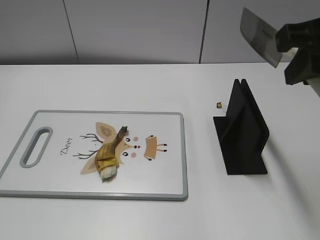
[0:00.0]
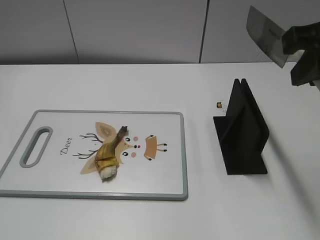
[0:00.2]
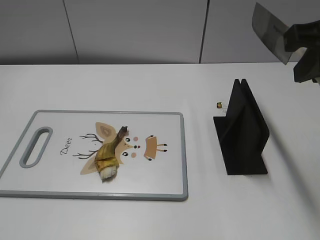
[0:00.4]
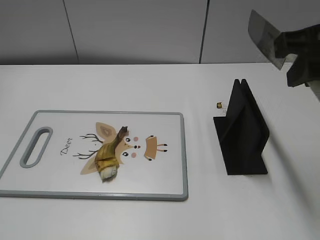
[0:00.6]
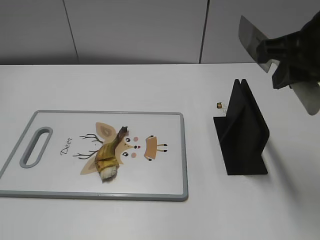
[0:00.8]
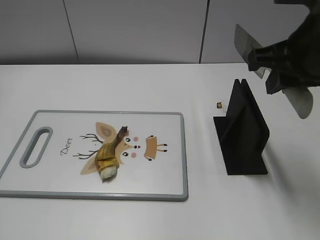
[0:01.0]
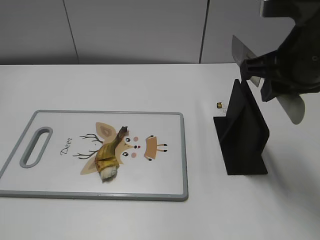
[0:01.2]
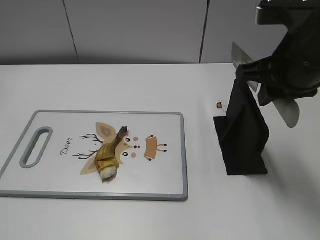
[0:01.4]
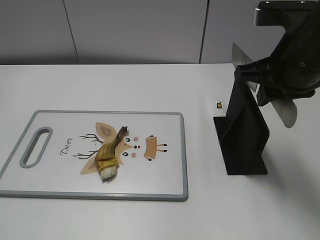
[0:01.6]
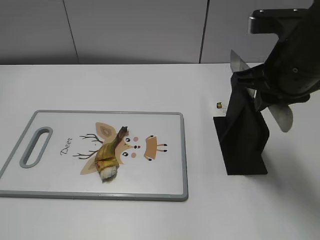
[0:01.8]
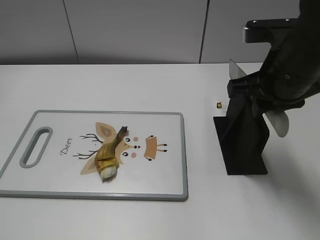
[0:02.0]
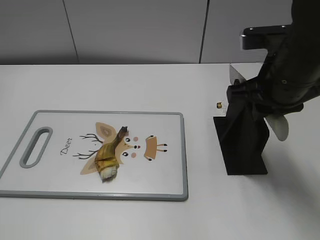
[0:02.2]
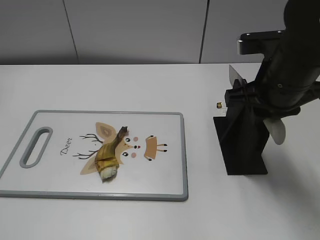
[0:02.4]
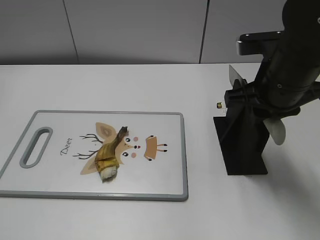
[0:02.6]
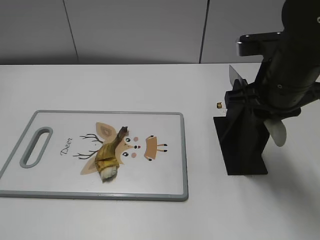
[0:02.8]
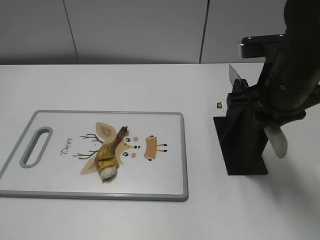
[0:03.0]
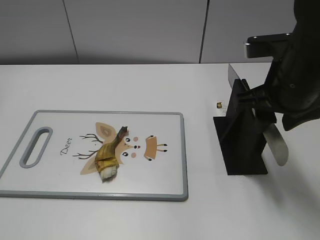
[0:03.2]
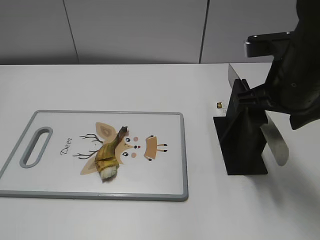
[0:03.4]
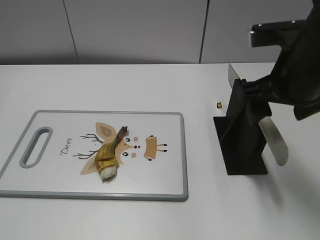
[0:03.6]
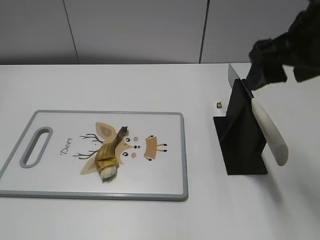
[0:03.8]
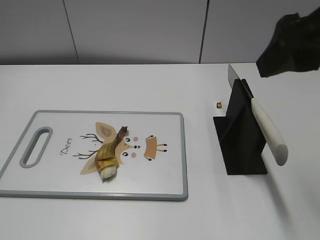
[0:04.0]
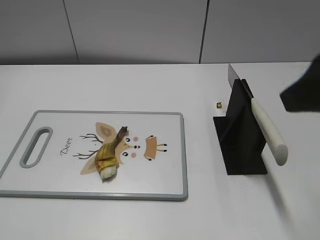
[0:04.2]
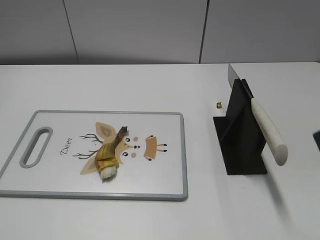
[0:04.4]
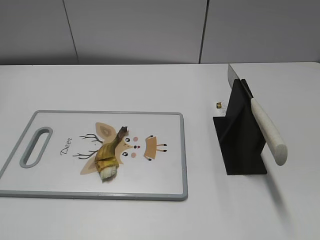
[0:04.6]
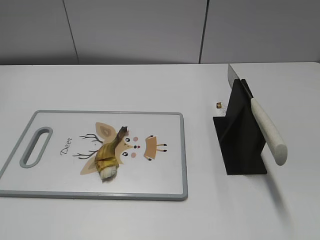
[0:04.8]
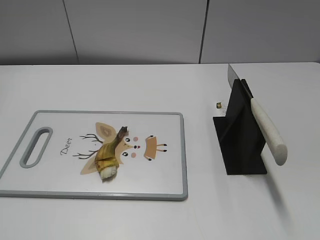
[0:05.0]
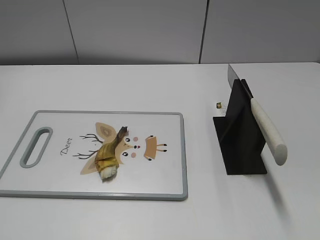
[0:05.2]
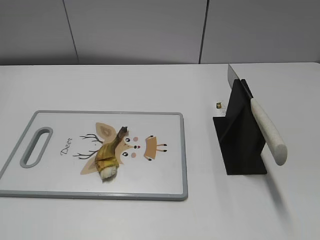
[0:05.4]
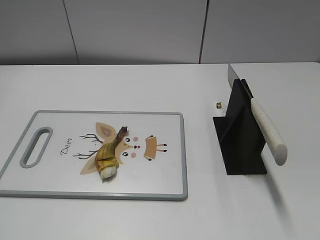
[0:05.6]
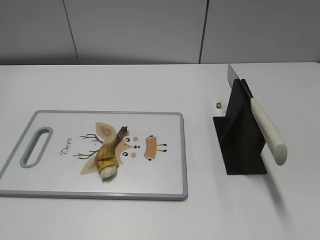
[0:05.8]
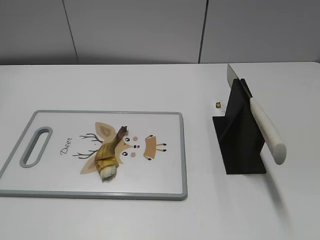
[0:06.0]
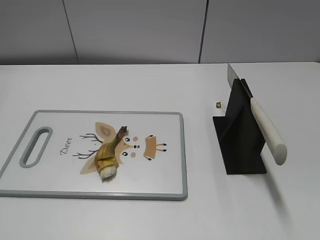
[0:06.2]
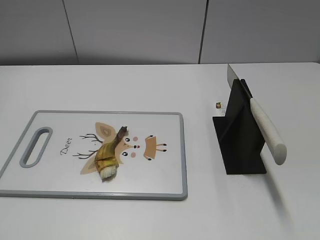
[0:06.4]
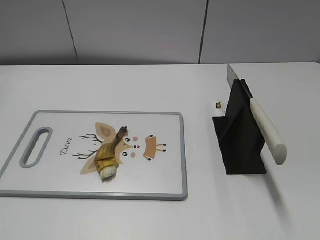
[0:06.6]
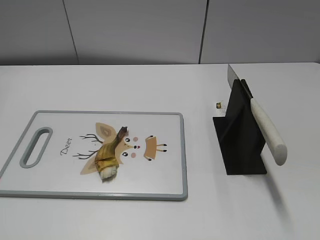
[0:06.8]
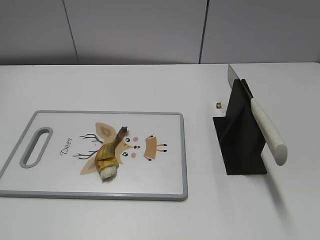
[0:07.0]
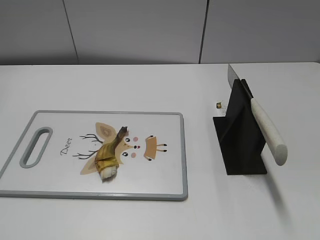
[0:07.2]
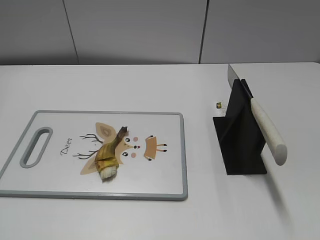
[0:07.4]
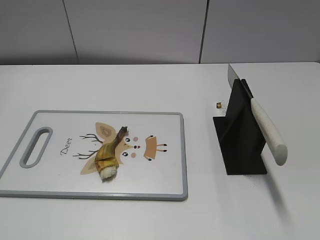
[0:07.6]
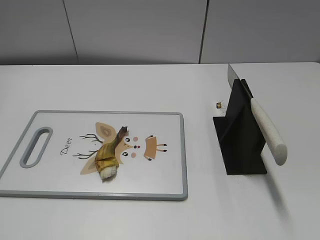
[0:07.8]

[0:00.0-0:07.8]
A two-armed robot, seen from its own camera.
Task of the whole recording: cut banana.
Step, 0:00.0 to 0:02.8: Lift the knife with your right hand.
Step, 0:03.0 to 0:07.8: Place the knife on the storage rack with your right hand.
0:00.0 to 0:01.6: The right gripper moves downward, roughly 5 cm.
0:01.6 to 0:03.2: The right gripper opens up.
0:03.2 to 0:04.6: The right gripper is displaced backward, to the right and upward by approximately 20 cm, and opens up.

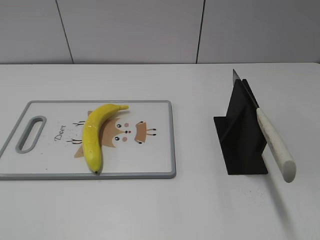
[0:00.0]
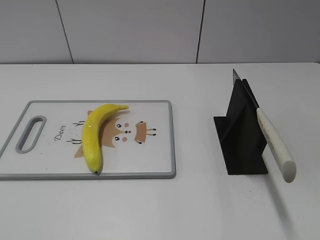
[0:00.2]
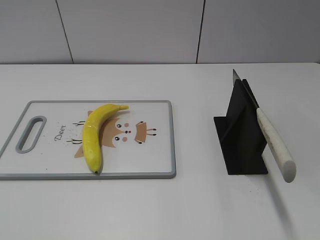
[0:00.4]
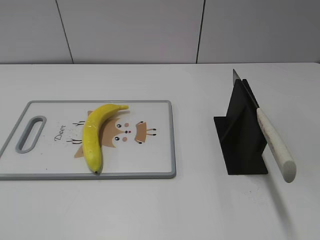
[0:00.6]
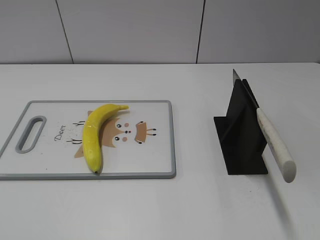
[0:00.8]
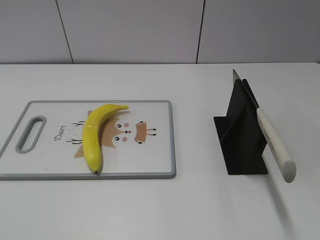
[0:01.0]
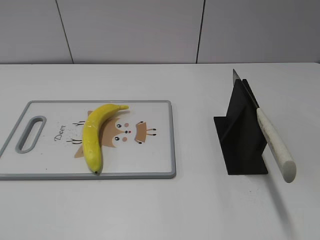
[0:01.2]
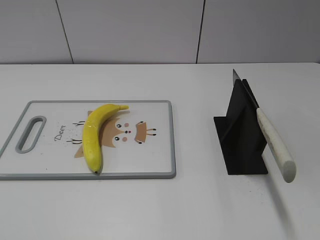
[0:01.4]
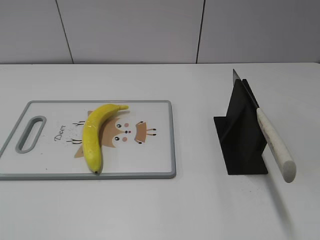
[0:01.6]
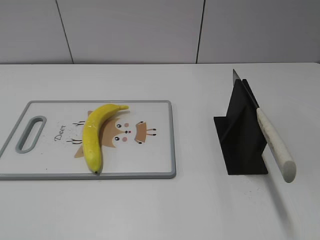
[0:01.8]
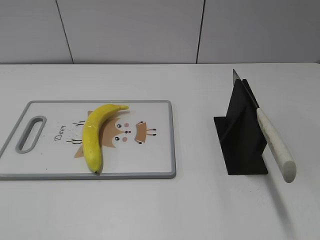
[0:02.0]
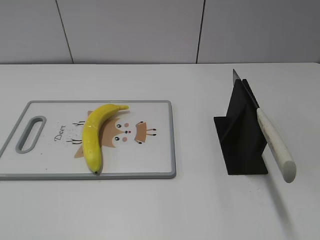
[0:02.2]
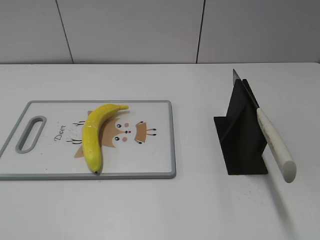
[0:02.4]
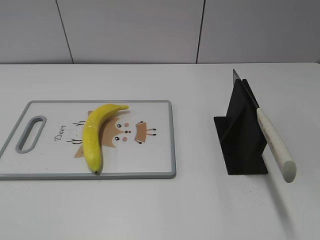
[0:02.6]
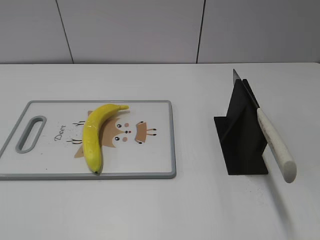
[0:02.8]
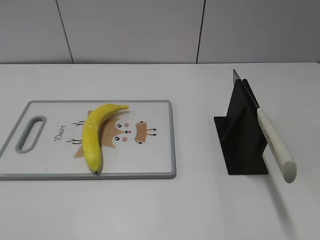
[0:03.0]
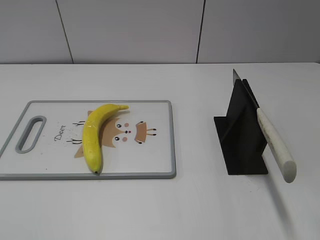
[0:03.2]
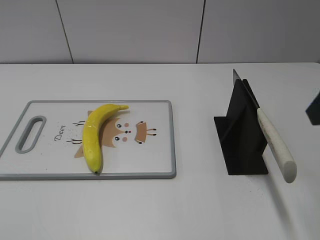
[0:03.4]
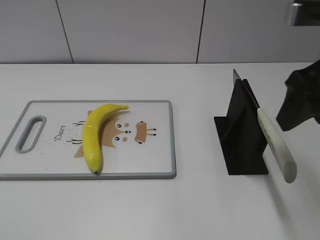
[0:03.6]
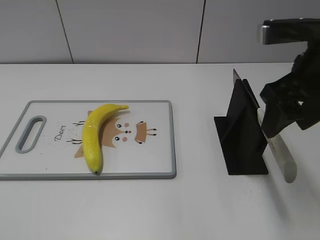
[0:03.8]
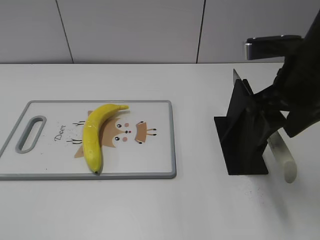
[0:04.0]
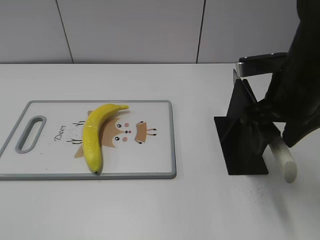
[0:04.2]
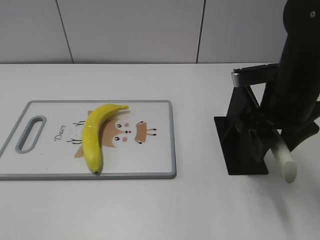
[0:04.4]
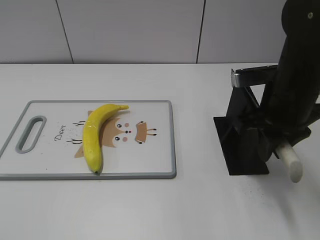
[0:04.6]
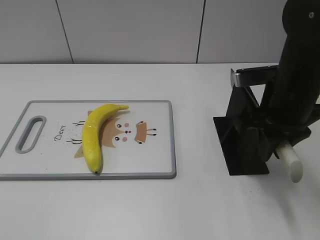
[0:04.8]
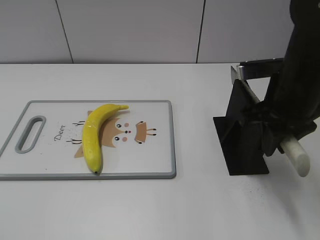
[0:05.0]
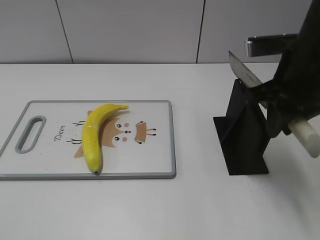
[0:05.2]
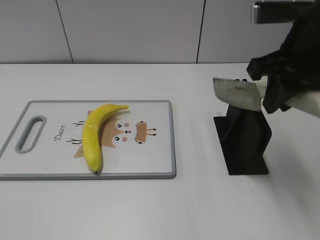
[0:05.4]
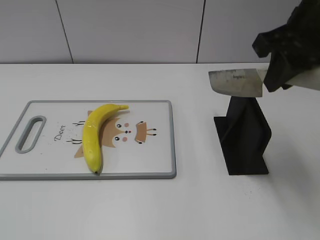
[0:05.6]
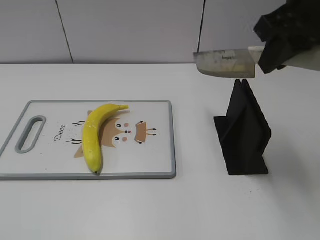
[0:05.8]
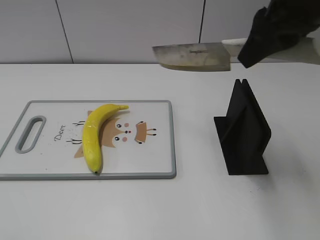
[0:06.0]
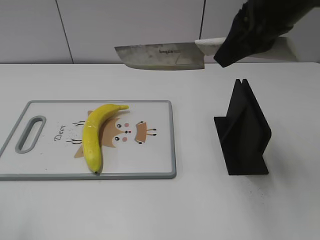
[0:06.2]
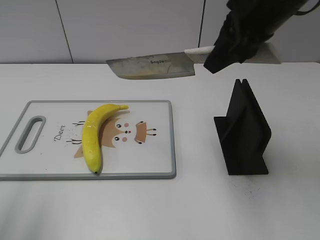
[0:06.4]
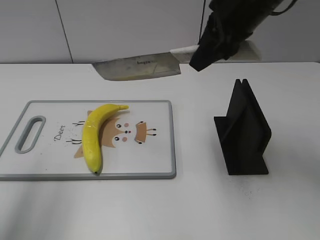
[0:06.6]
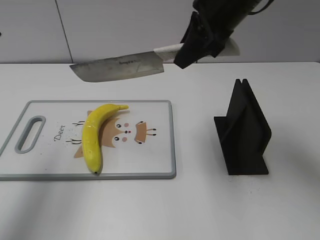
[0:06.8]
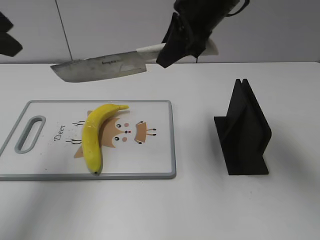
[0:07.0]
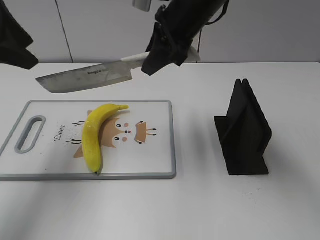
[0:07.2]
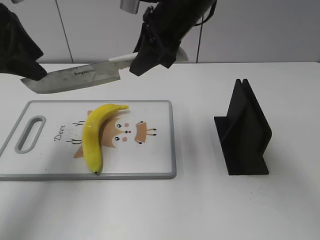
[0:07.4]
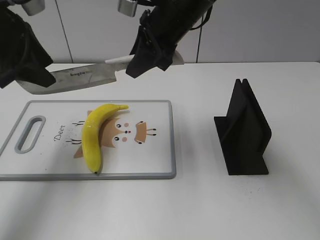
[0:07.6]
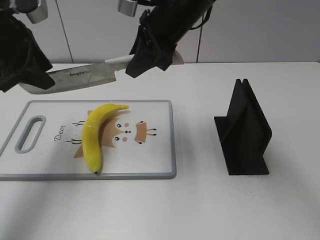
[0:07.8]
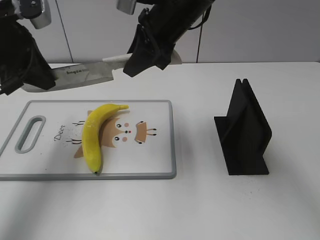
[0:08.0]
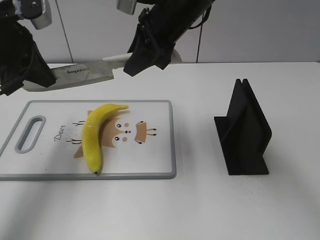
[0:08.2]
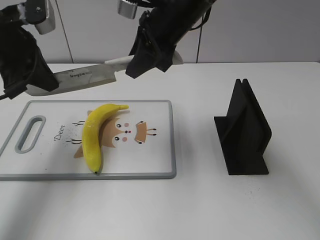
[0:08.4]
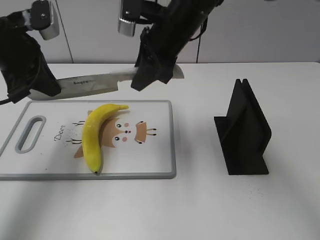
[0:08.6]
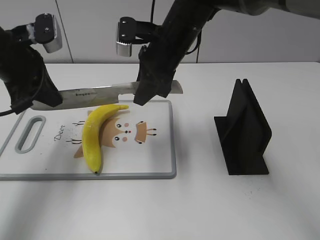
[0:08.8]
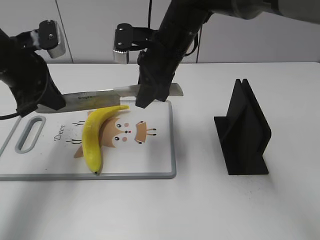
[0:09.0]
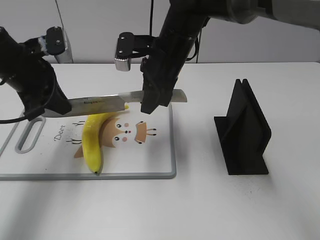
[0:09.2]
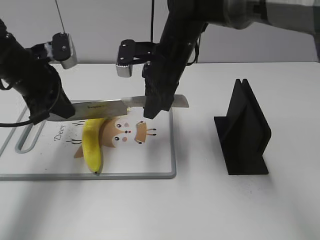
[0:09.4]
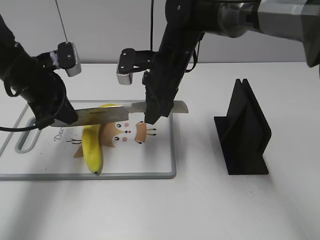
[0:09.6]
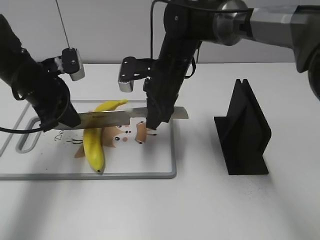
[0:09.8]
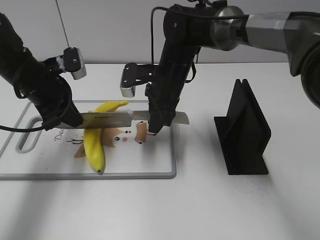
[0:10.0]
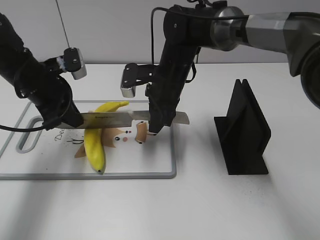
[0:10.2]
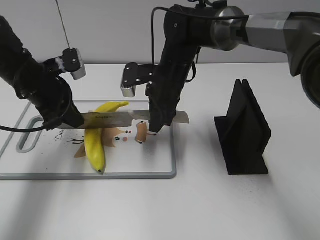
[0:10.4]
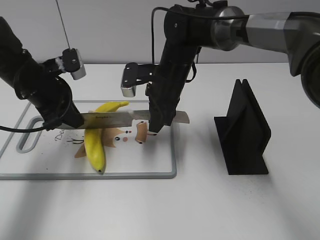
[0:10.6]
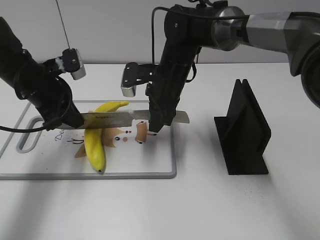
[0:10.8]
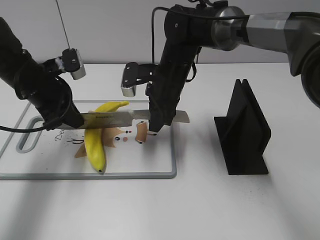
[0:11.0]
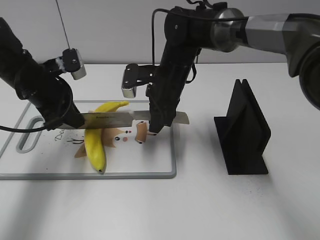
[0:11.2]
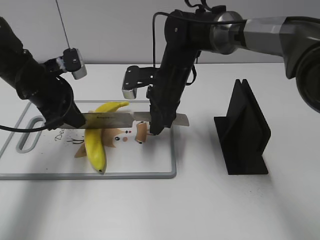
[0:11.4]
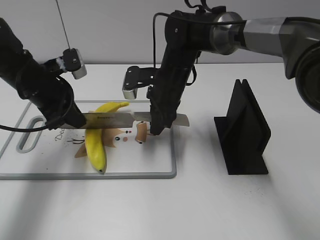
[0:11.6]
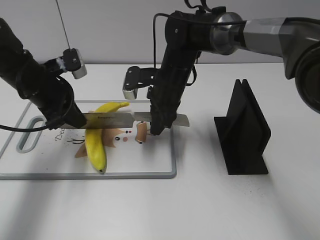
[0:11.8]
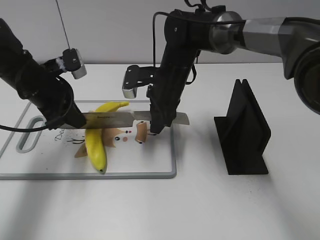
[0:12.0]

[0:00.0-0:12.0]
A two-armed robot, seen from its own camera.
Task of the whole recording: cut plastic banana.
Step, 0:00.0 to 0:05.6: Grab the knife handle with your right hand.
Step, 0:06.0 to 0:10.2: Lift the knife with your right hand.
0:03.0 to 0:04.4: The right gripper shifts approximately 20 cm forward, downward and to the left, and closes.
0:04.4 to 0:06.0: The left gripper shifts by approximately 5 cm, while the right gripper heads upward, covering about 15 cm, and closes its fingers.
0:06.0 to 0:07.6: The left gripper is displaced forward by some 30 cm. Meanwhile the right gripper heads to the left, forward and downward, covering about 20 cm.
0:07.6 to 0:09.0: The grippers both shift downward by approximately 5 cm. The left gripper closes its fingers.
0:09.0 to 0:10.4: The two grippers go roughly 5 cm downward.
0:10.4 to 0:12.0: Both grippers stay put.

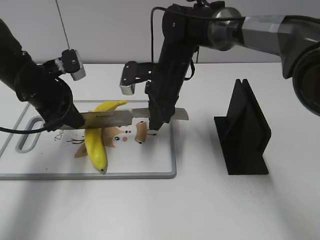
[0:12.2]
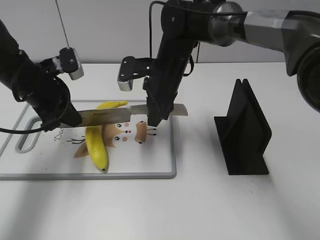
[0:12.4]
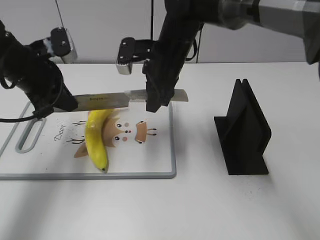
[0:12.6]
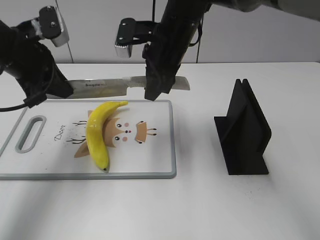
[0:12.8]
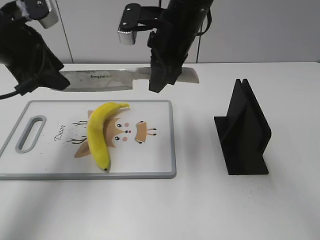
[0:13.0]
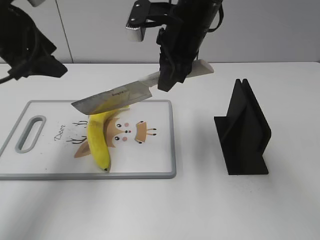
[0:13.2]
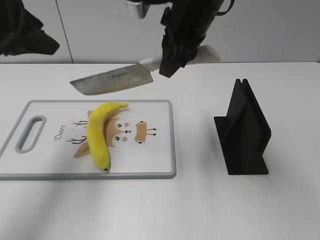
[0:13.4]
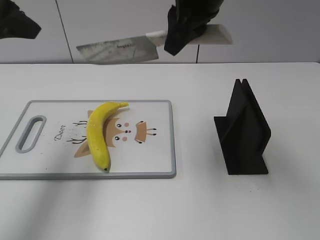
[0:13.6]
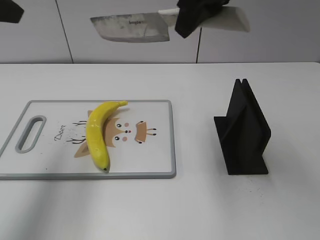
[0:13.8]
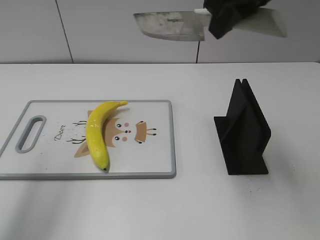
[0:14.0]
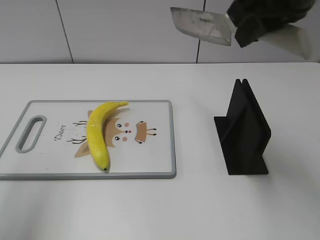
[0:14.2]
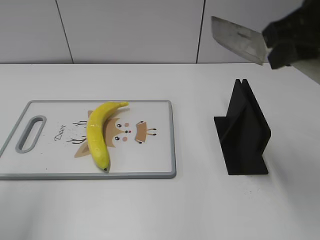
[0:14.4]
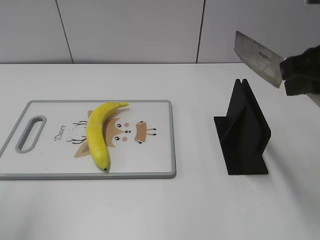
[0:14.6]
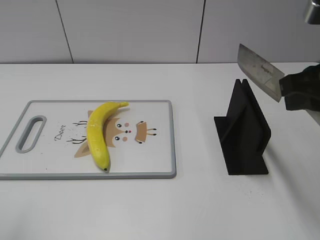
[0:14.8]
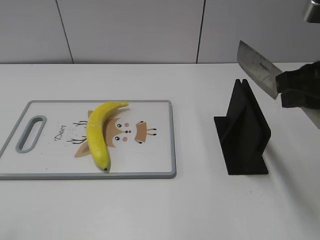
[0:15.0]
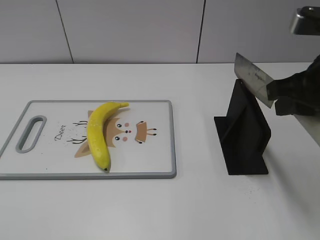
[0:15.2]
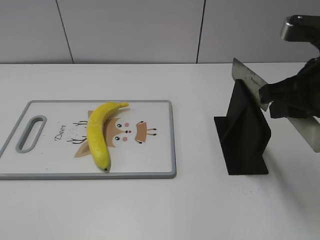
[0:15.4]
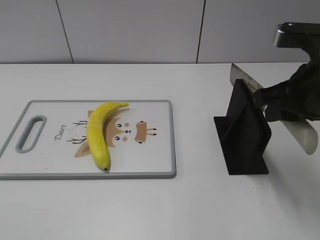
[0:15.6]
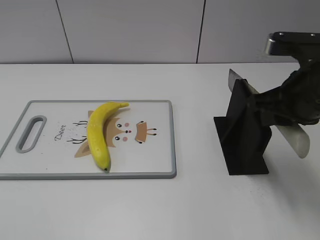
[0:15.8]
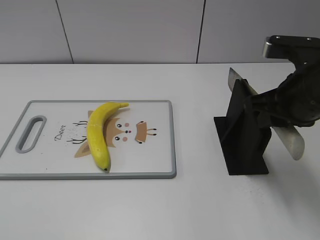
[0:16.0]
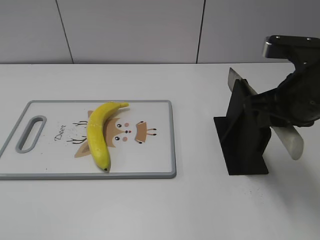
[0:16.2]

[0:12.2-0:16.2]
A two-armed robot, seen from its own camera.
Task of the whole recording: cut plastic banana.
Step, 0:13.2 to 0:15.8: Lift the knife with your right hand.
0:12.2 to 0:13.6: Both grippers move upward, approximately 20 cm. The left gripper opens.
0:13.6 to 0:14.8: The left gripper moves backward, about 15 cm. The right gripper moves to the right and backward, some 20 cm.
0:14.8 to 0:16.2: The right gripper moves downward, roughly 5 cm.
